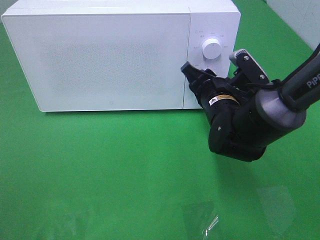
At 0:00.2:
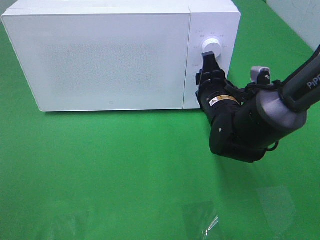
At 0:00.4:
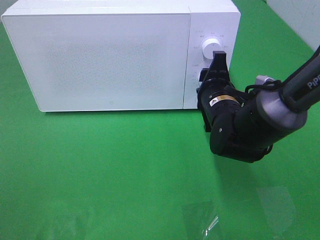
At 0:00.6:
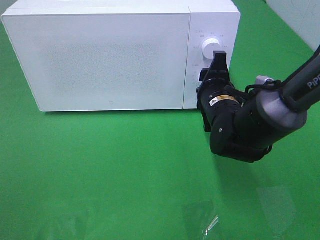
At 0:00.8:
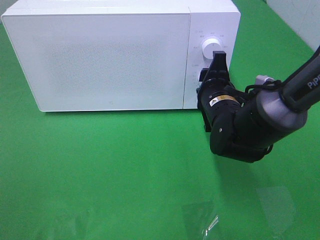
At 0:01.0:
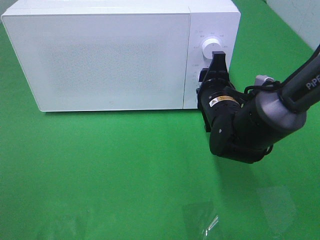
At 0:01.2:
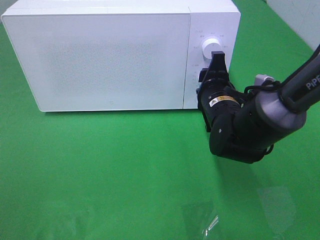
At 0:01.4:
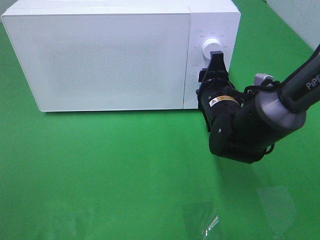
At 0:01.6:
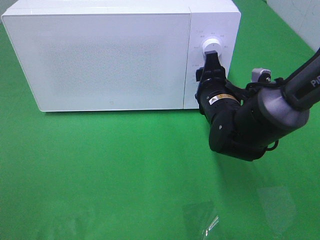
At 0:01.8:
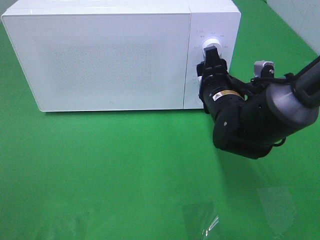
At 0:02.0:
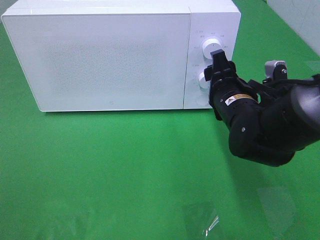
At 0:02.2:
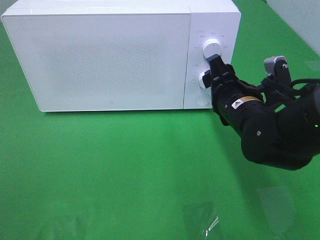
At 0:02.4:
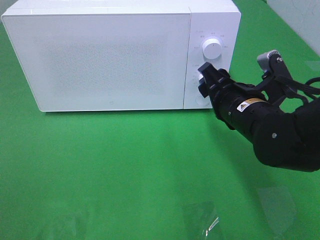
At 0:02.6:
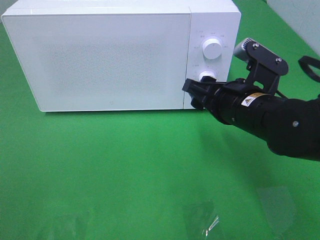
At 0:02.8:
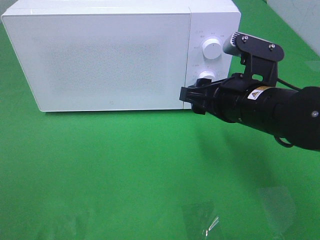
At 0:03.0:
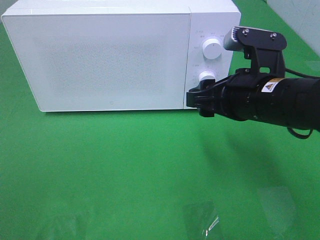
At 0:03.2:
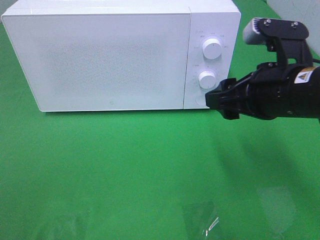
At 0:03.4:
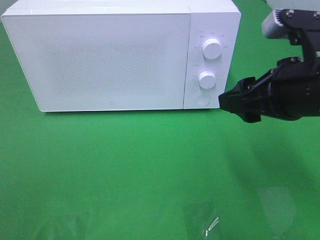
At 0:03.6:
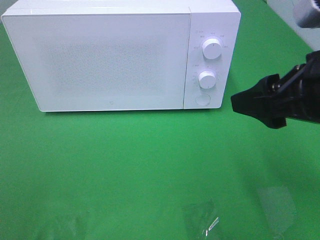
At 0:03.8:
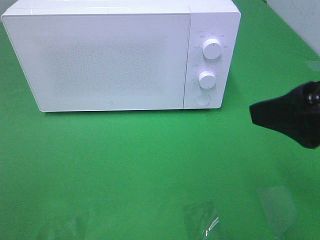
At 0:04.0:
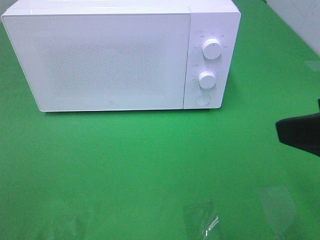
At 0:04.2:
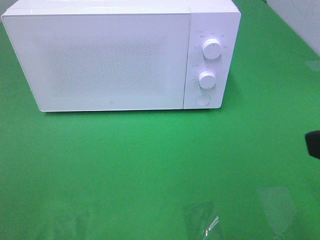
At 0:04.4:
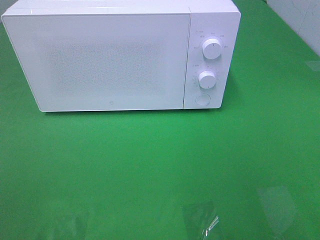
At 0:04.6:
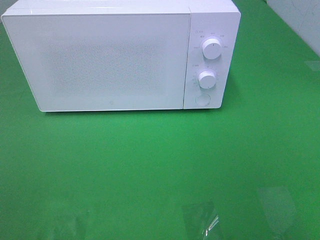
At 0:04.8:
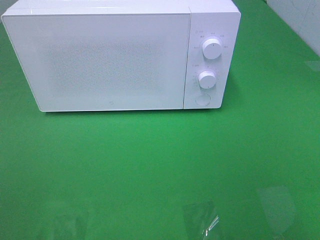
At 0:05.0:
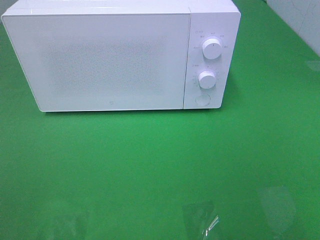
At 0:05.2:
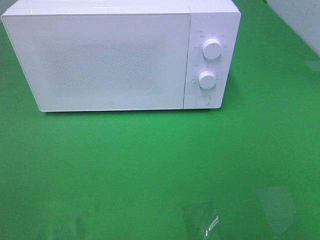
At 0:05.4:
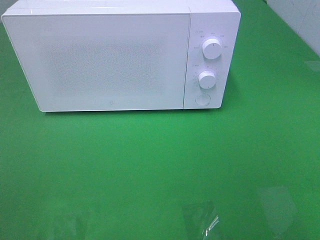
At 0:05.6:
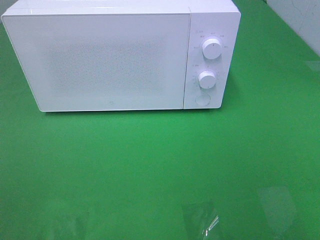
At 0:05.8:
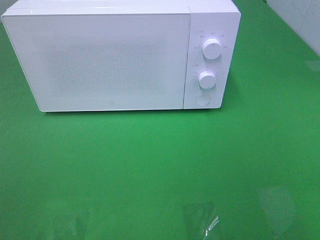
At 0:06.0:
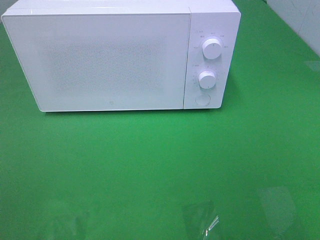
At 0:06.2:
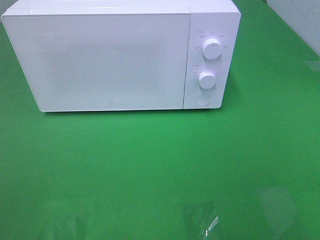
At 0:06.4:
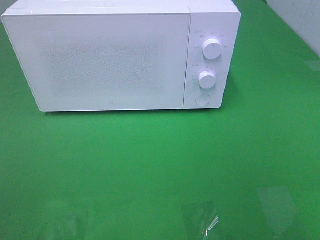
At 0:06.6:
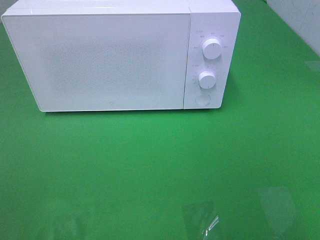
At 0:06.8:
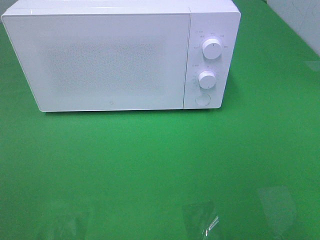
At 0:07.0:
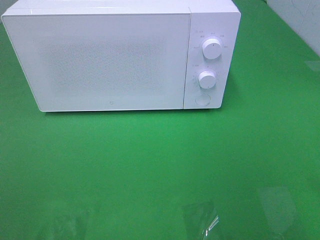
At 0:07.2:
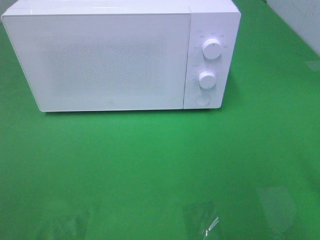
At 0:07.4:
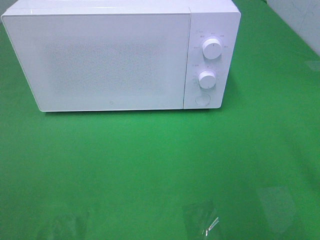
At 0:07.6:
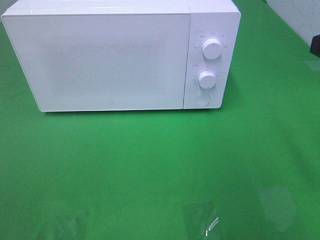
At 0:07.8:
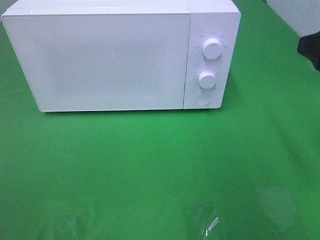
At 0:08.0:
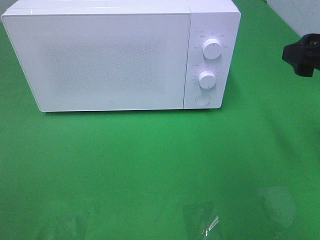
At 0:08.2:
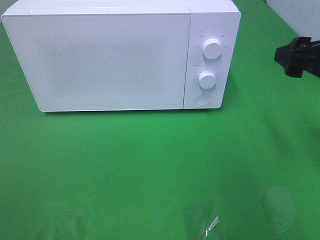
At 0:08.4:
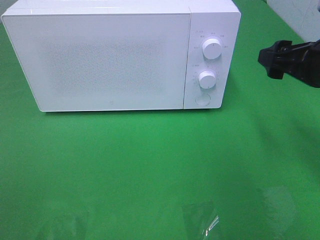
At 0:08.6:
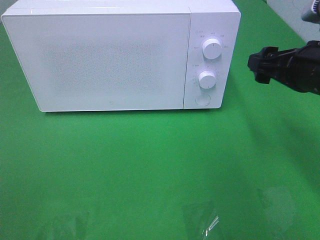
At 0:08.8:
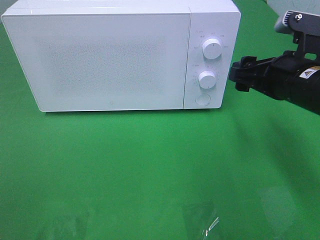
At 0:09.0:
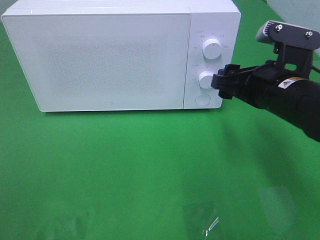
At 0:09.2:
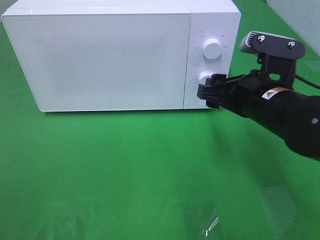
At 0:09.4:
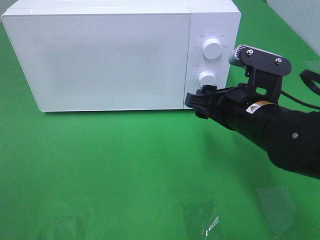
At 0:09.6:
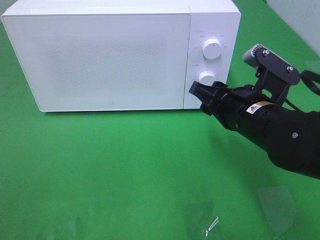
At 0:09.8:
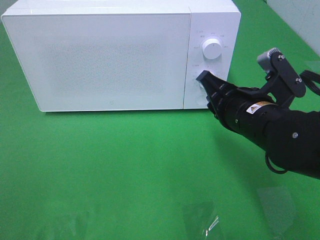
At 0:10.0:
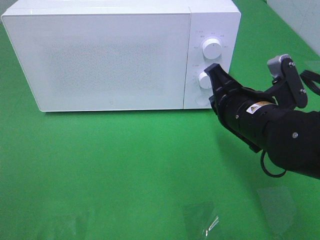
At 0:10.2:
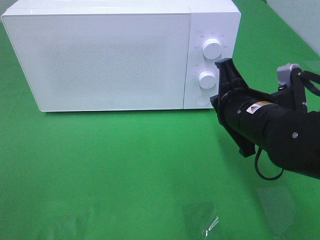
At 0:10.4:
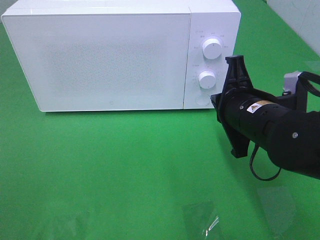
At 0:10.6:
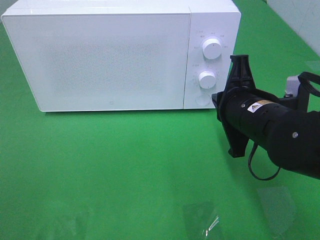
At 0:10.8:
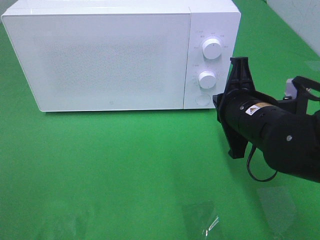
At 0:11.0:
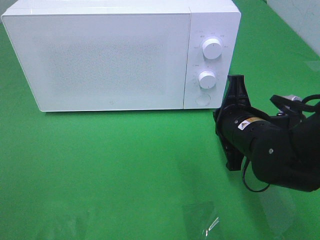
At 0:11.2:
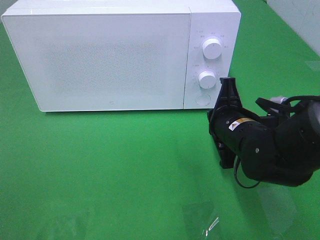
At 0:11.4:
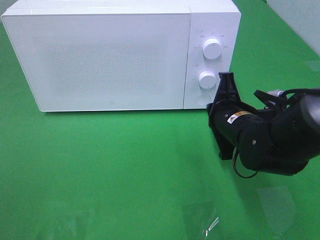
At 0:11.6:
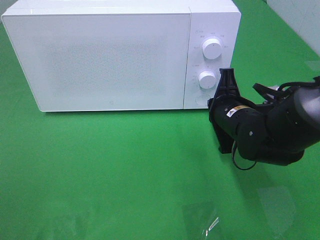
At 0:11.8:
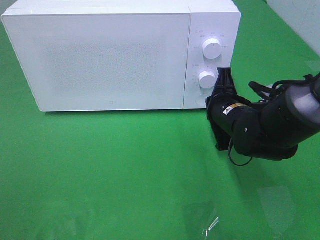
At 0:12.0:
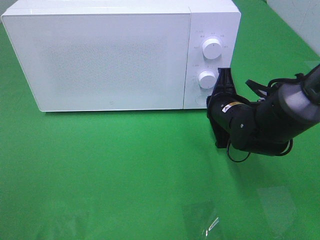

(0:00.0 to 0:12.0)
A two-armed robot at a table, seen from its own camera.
Task of the whole recording: Heat the burger.
0:01.6 - 0:03.0: The right gripper goes about 10 cm backward and upward.
0:03.0 - 0:04.4: The right gripper travels backward, to the right and upward by some 25 cm.
0:07.6 - 0:09.0: The right gripper moves downward, to the left and forward, about 15 cm.
0:09.0 - 0:10.4: The right gripper closes.
0:10.4 - 0:12.0: The right gripper heads forward and downward, covering roughly 10 cm.

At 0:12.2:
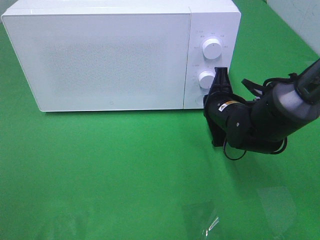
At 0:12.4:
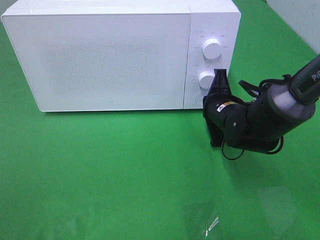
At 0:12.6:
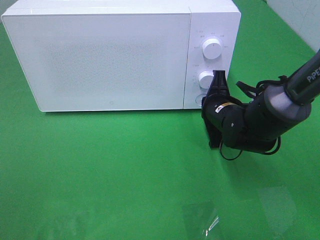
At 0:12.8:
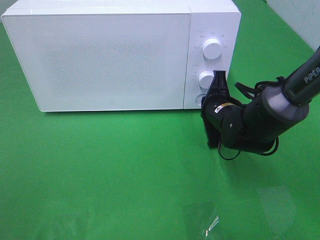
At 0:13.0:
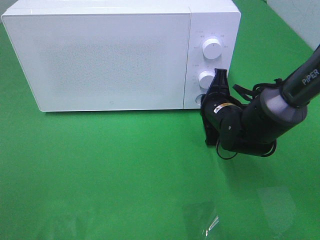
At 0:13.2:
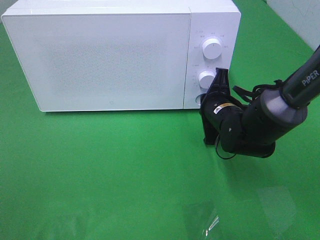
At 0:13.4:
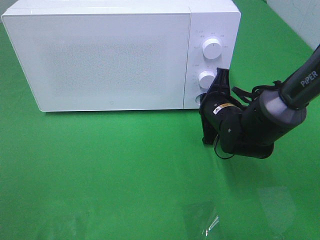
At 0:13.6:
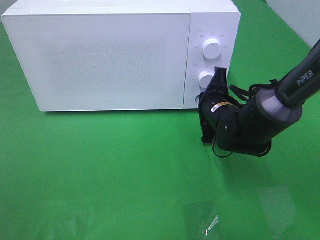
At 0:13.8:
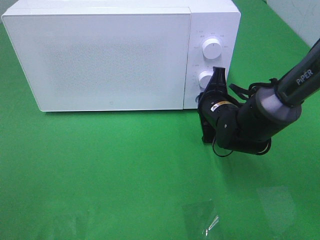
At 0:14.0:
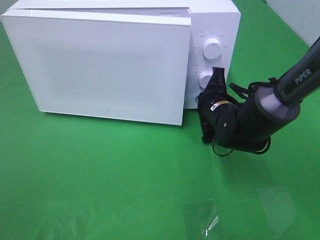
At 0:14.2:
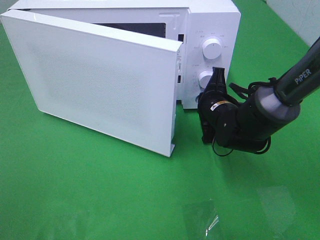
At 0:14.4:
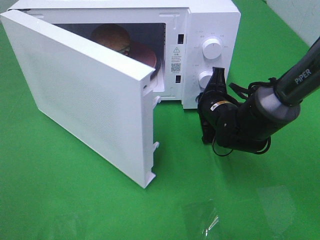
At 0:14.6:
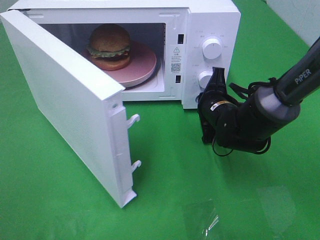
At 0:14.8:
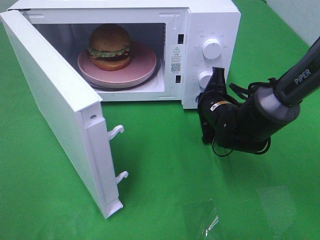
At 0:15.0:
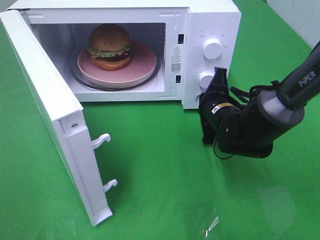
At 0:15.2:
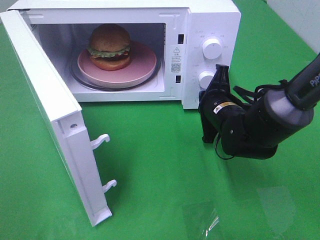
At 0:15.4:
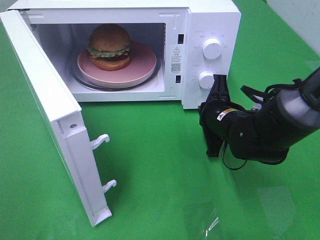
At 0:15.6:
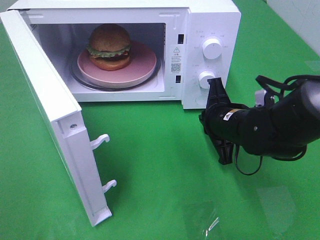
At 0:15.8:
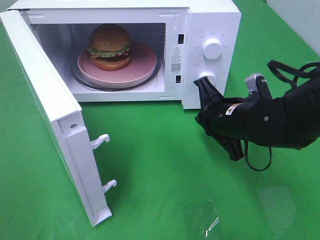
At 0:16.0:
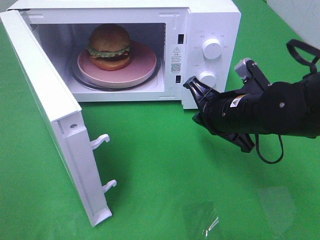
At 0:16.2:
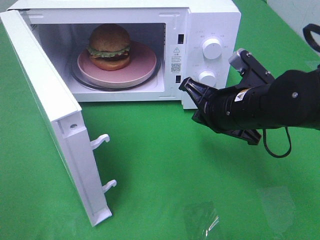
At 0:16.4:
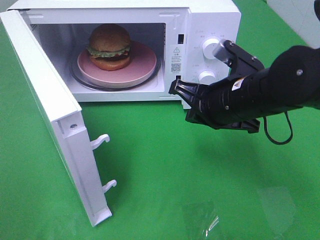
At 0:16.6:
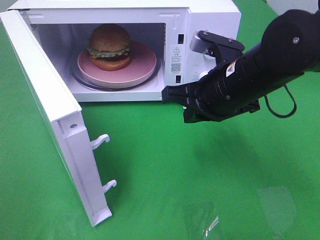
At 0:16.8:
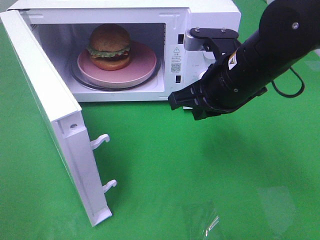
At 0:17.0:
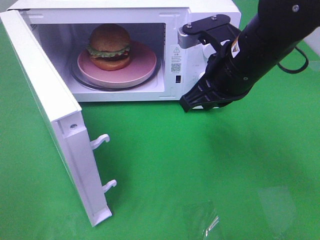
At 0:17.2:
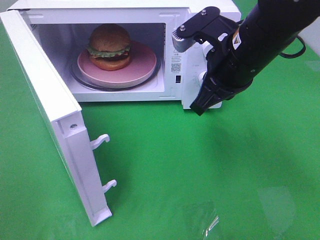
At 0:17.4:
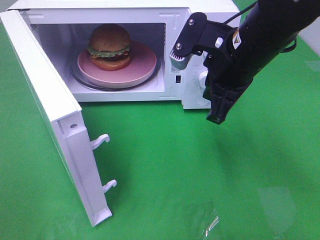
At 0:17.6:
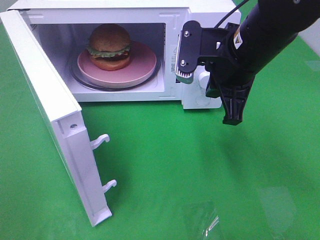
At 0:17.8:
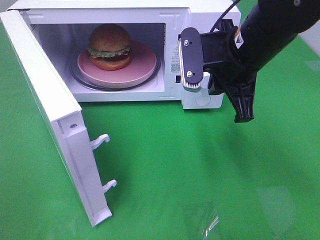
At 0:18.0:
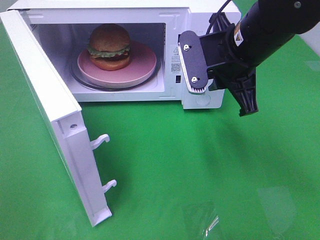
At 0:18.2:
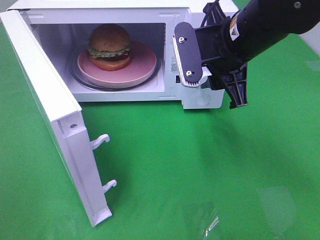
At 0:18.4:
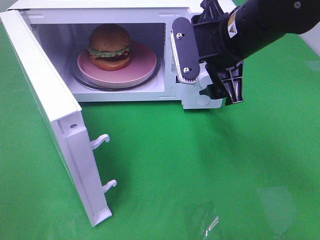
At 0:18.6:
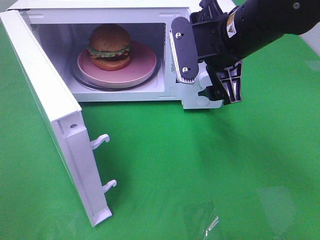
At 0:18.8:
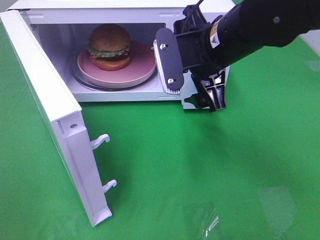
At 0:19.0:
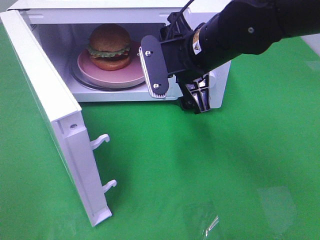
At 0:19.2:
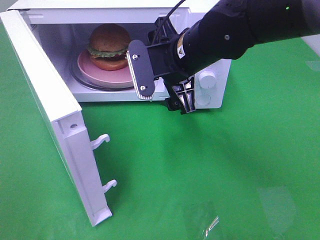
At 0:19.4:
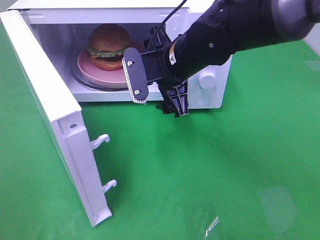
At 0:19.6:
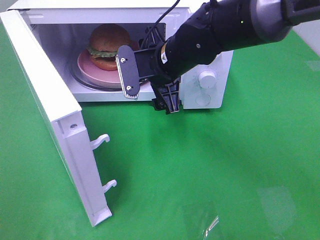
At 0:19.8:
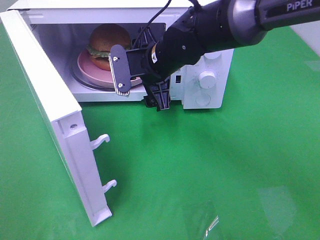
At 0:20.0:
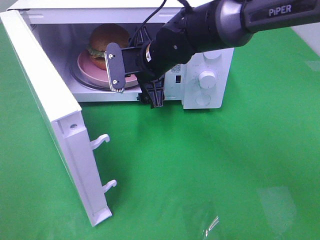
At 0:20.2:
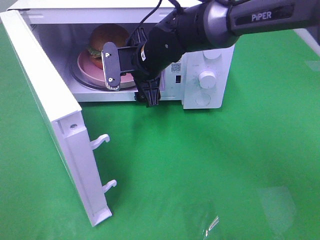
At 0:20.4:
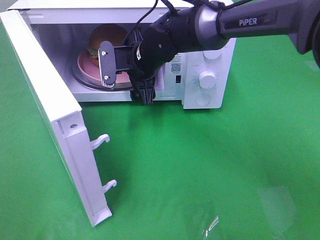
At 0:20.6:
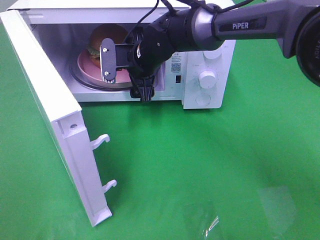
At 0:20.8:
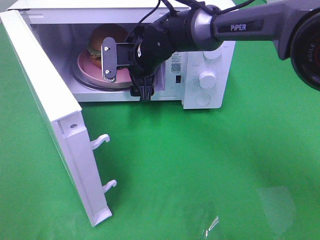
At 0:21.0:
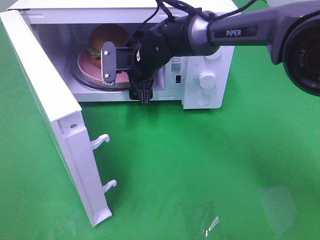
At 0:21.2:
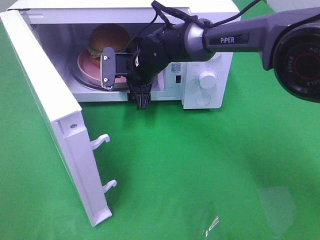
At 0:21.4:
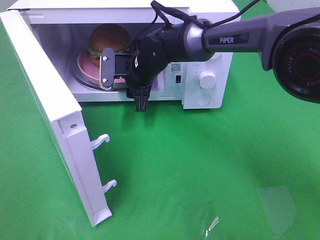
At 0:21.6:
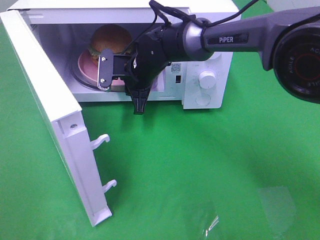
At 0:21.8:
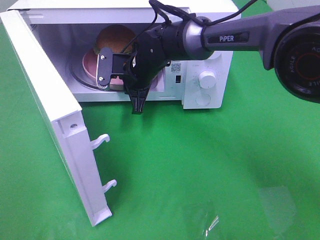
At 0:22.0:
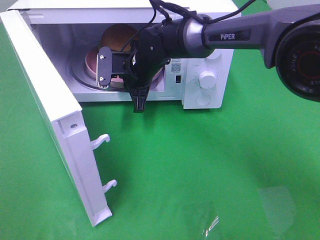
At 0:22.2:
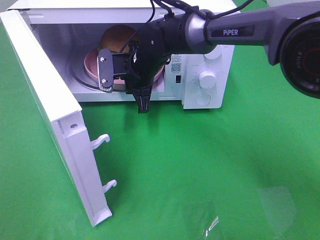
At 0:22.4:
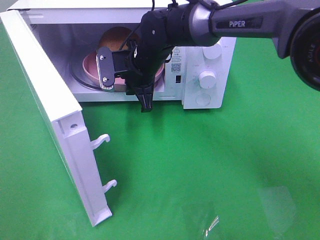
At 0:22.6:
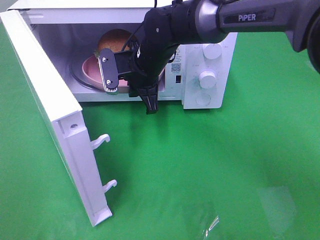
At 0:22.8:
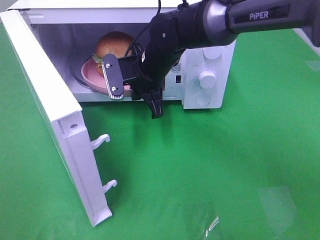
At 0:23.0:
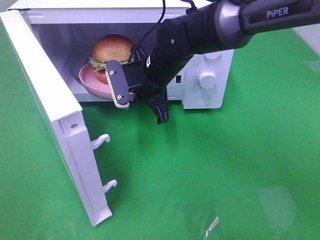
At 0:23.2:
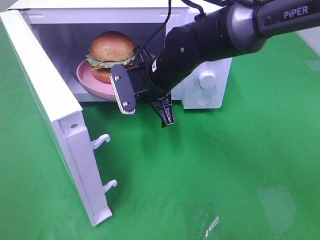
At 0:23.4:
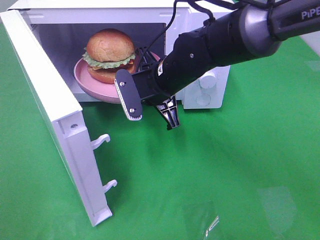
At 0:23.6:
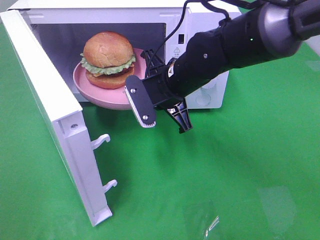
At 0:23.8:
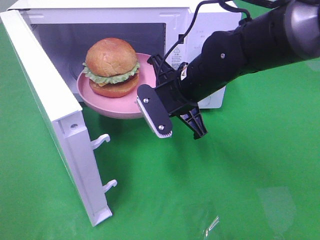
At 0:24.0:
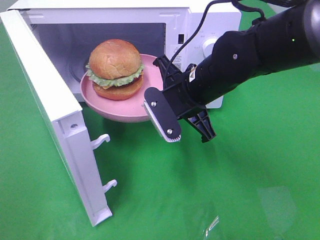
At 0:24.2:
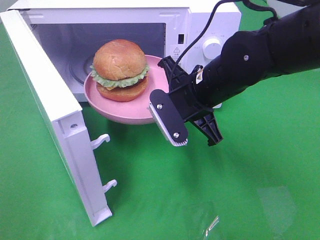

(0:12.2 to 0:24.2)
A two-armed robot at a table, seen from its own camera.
Task of the whole recording: Heat the burger.
Step, 0:12.2 - 0:15.2: Right hand: press the switch.
Step, 0:15.4 - 0:22.0: Right hand: grab the plate with the hamburger.
0:12.2 - 0:13.8: There are only small adjustments of the grippers.
0:15.2 - 0:16.6: The right gripper shifts roughly 10 cm upward and backward.
0:16.6 - 0:18.2: The right gripper changes place by about 5 cm, and opens.
0:18.2 - 0:19.8: The right gripper heads to the left, downward and forward, covering about 15 cm.
0:19.8 - 0:21.2: The right gripper travels forward by some 5 cm.
0:21.2 - 0:22.6: The right gripper closes.
0:22.6 - 0:24.2: The right gripper is displaced backward and to the right by roughly 15 cm.
